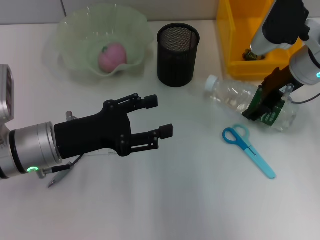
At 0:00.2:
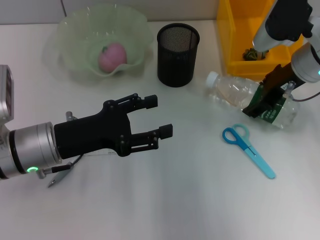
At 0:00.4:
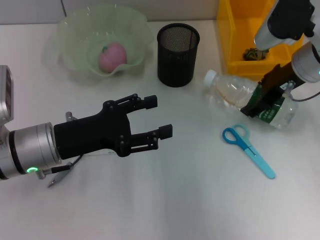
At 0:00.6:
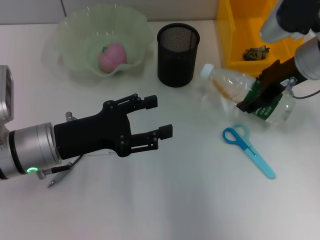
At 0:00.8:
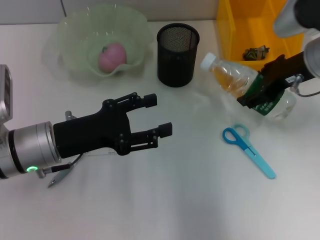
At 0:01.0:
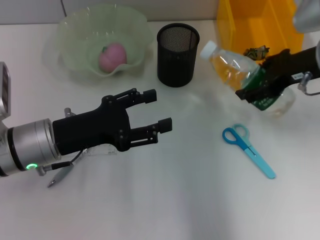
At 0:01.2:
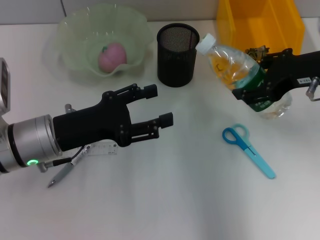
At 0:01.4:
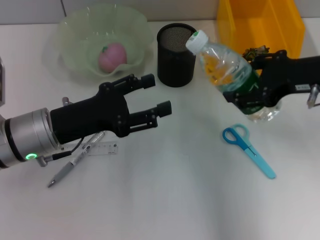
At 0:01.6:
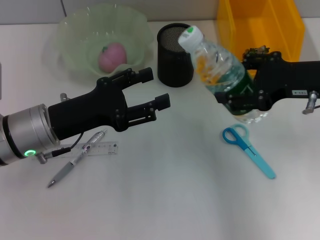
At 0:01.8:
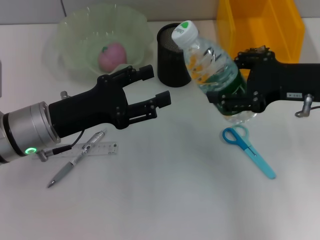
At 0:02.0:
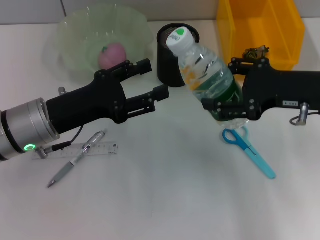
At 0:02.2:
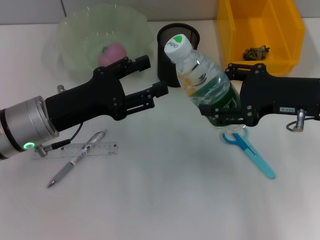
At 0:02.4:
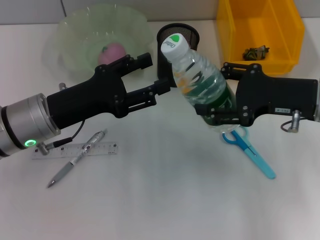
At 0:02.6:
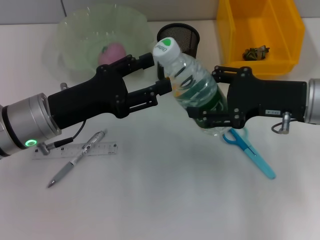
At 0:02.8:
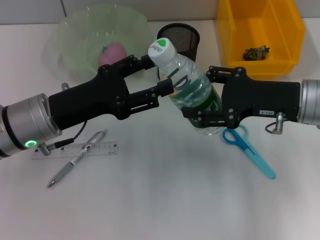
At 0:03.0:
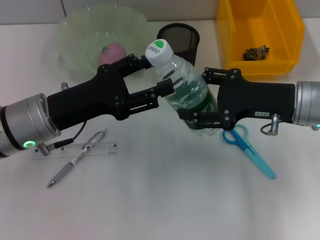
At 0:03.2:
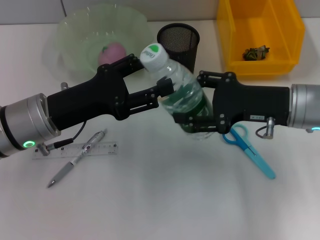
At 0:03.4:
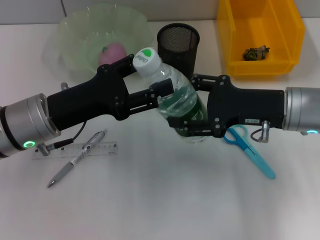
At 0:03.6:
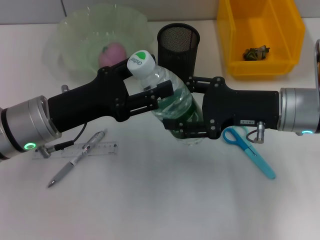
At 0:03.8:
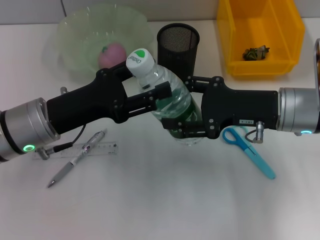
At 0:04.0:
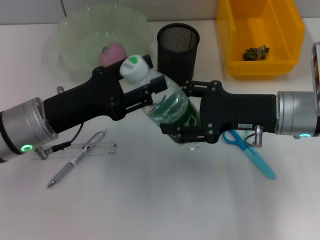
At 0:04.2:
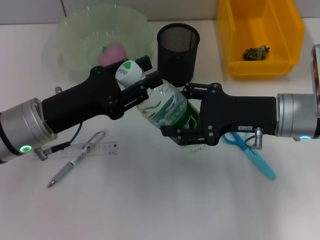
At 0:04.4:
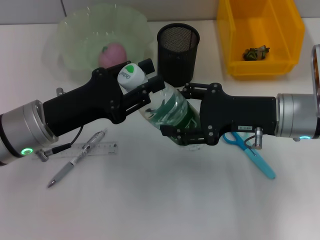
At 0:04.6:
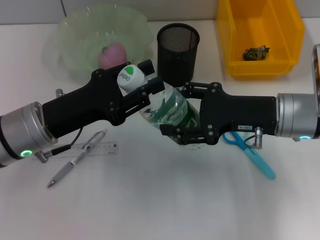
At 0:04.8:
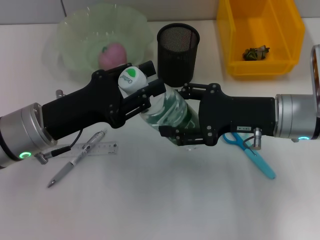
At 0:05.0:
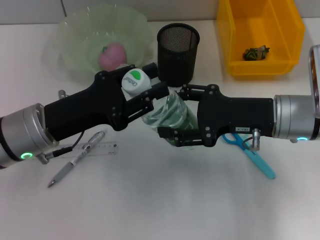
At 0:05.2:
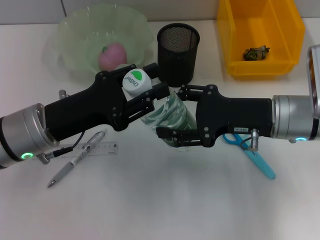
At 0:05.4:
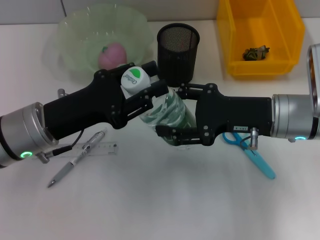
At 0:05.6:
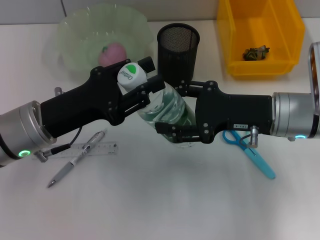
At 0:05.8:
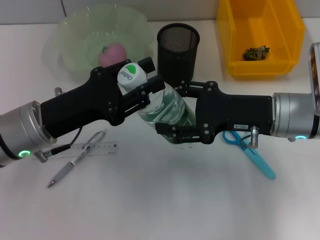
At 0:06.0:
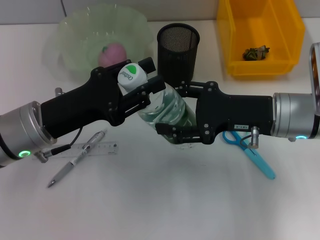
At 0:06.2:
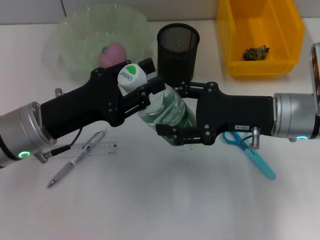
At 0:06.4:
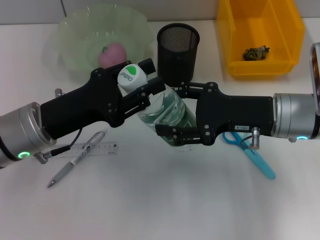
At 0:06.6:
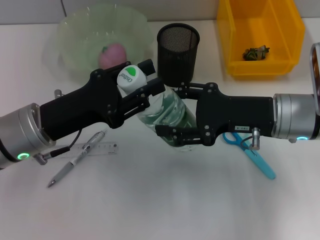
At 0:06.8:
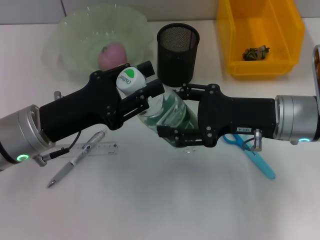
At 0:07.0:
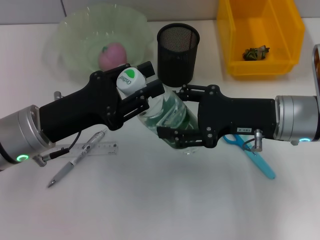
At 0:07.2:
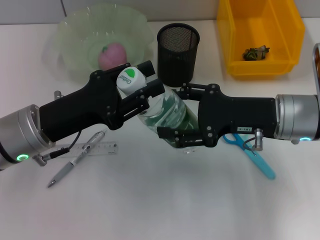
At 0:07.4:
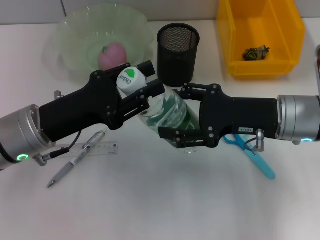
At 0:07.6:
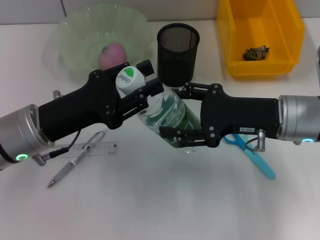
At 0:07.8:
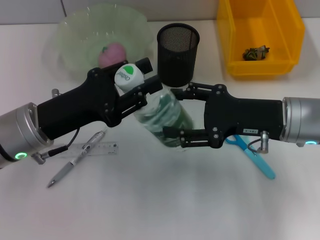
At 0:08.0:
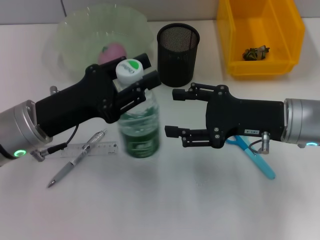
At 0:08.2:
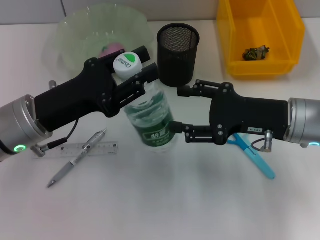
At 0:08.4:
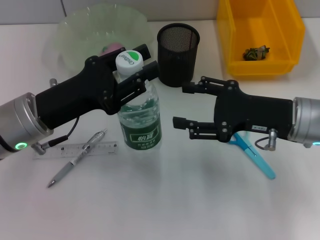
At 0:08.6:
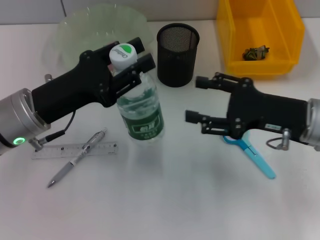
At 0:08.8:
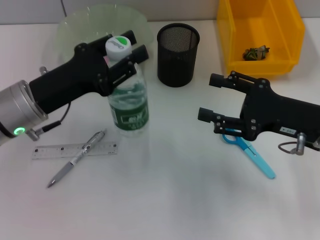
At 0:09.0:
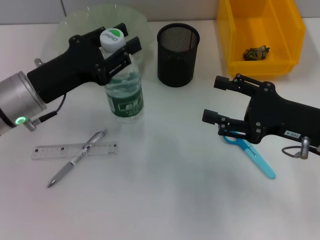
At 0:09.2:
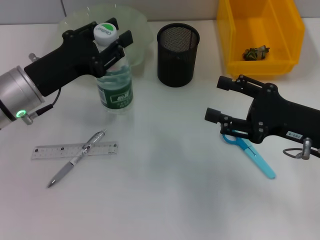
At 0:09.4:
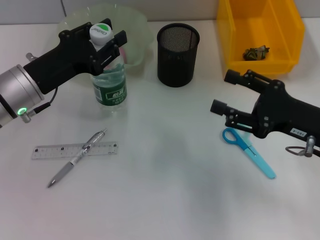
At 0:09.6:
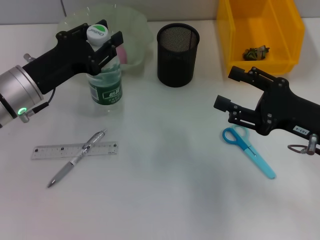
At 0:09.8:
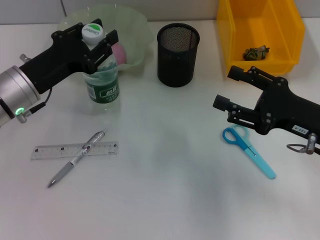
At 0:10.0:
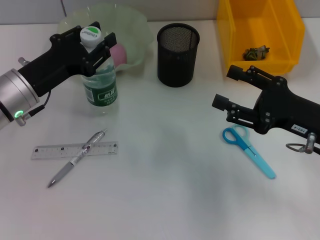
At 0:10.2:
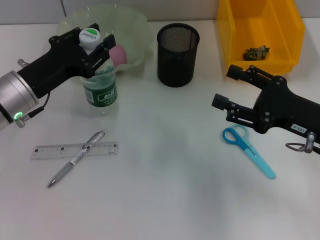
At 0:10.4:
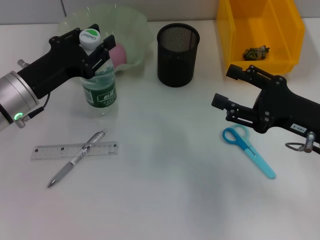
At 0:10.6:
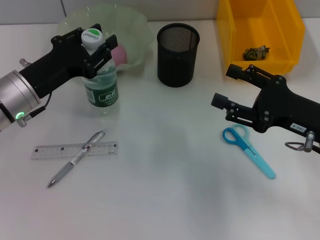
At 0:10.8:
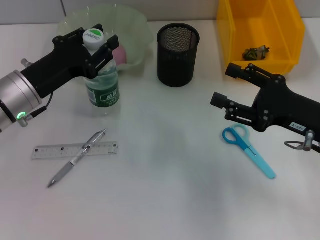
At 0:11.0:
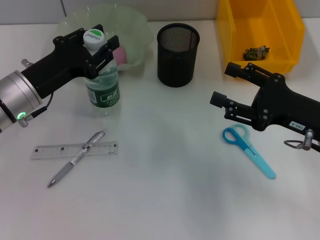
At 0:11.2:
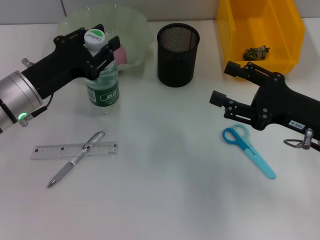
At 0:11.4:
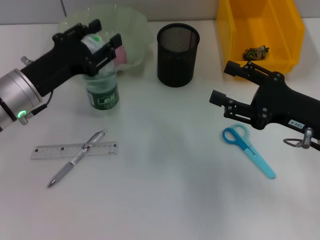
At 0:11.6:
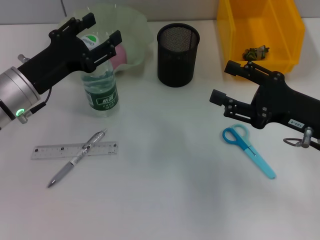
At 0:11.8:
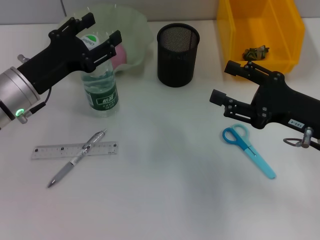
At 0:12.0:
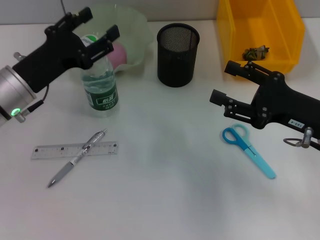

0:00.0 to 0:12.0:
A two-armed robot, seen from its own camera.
Step, 0:00.0 to 0:07.8: Pass the water bottle from the right hand to the left hand.
0:00.0 to 0:01.6: The right gripper is displaced backward by approximately 10 cm.
0:01.6 to 0:03.0: The right gripper moves downward, some 5 cm.
0:03.0 to 0:04.4: The left gripper closes.
0:04.4 to 0:07.6: Neither gripper changes place.
0:07.6 to 0:09.0: The right gripper moves to the right, approximately 5 cm.
0:09.0 to 0:10.4: The grippers make only small movements.
0:10.4 to 0:12.0: The left gripper opens.

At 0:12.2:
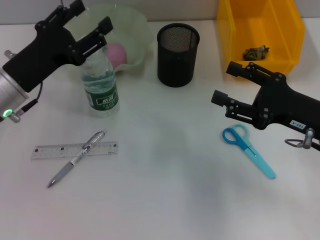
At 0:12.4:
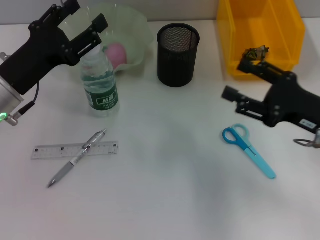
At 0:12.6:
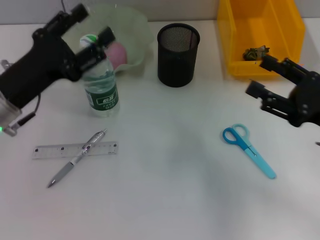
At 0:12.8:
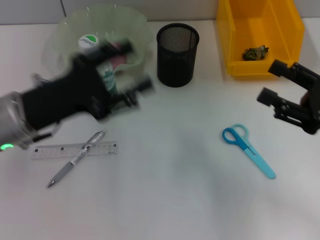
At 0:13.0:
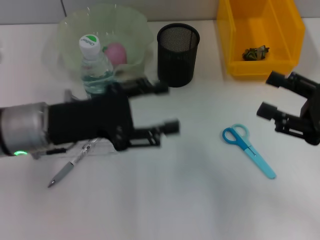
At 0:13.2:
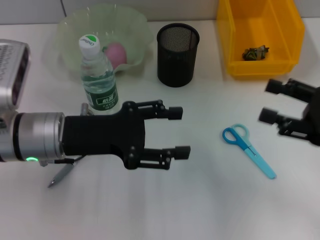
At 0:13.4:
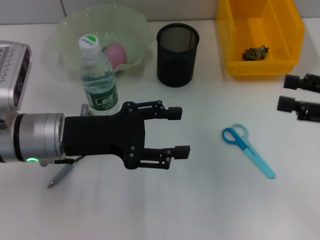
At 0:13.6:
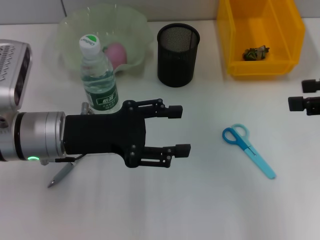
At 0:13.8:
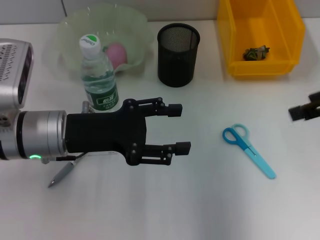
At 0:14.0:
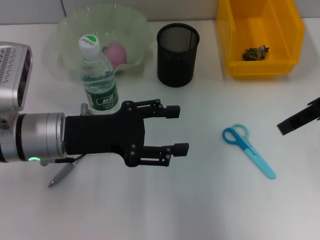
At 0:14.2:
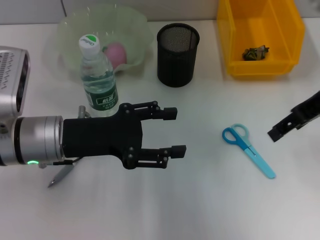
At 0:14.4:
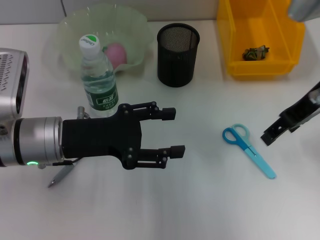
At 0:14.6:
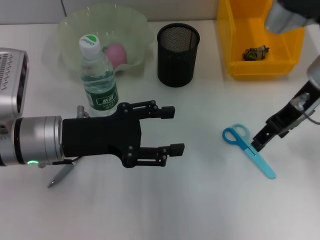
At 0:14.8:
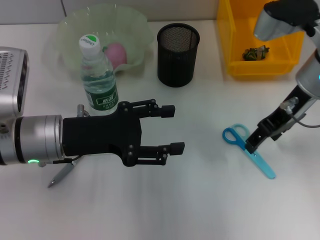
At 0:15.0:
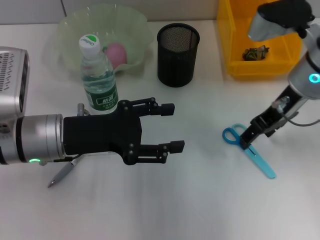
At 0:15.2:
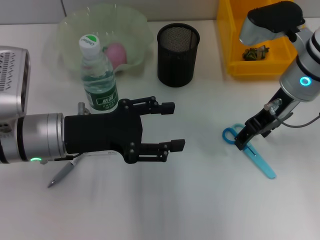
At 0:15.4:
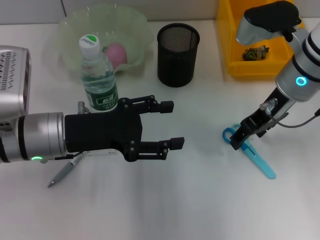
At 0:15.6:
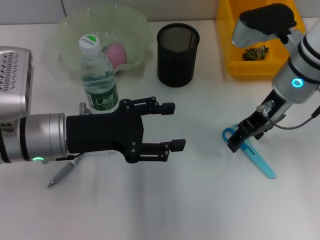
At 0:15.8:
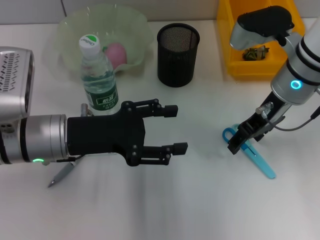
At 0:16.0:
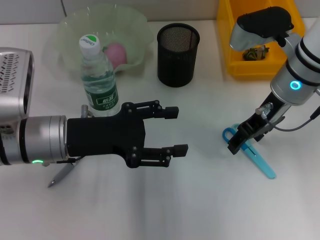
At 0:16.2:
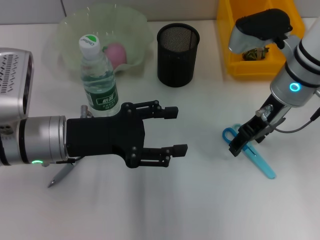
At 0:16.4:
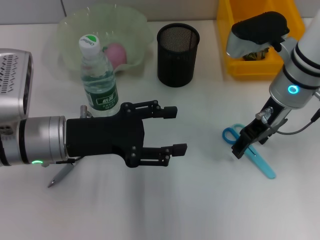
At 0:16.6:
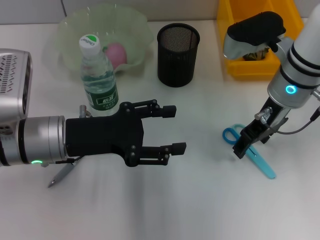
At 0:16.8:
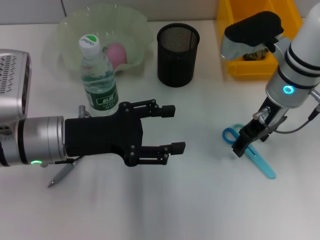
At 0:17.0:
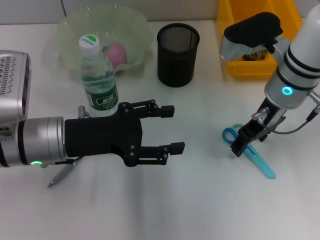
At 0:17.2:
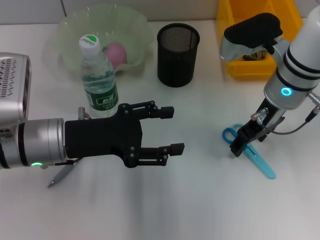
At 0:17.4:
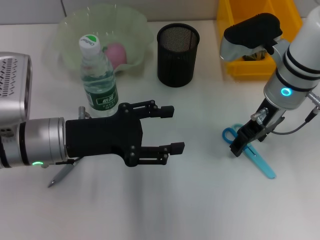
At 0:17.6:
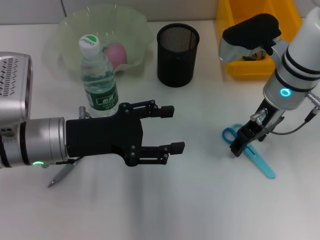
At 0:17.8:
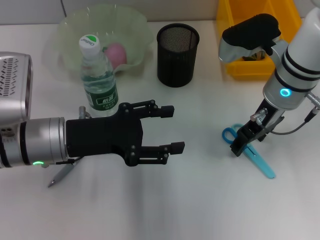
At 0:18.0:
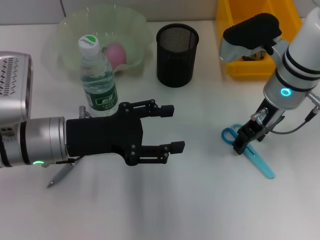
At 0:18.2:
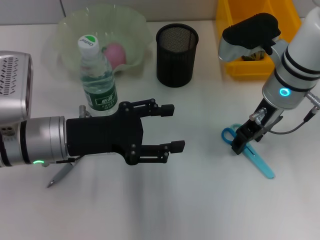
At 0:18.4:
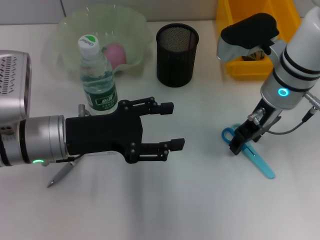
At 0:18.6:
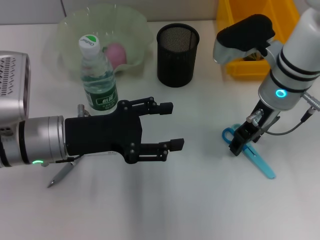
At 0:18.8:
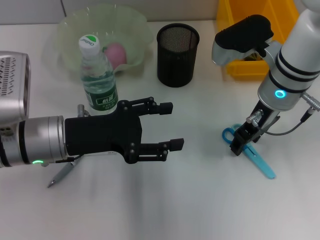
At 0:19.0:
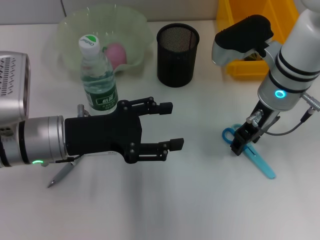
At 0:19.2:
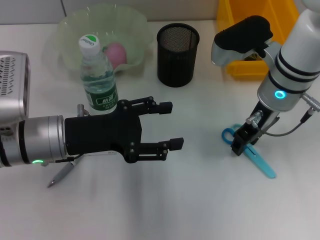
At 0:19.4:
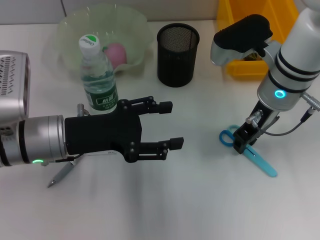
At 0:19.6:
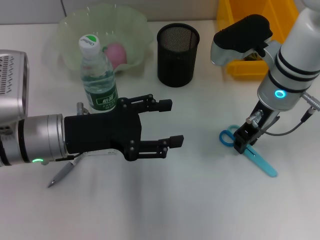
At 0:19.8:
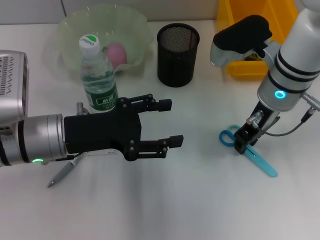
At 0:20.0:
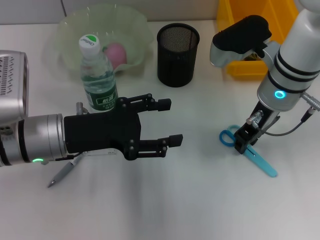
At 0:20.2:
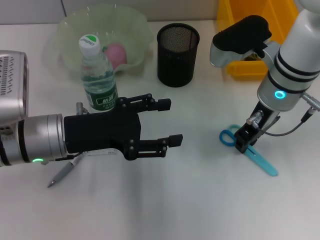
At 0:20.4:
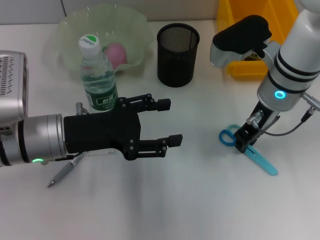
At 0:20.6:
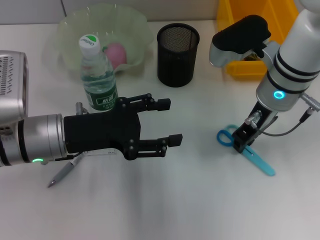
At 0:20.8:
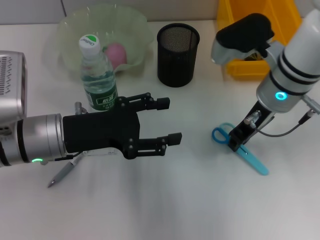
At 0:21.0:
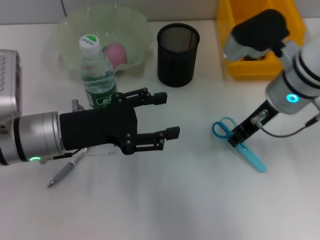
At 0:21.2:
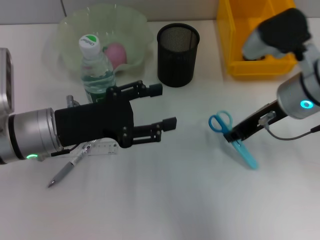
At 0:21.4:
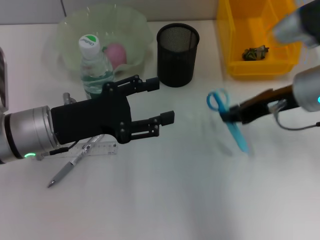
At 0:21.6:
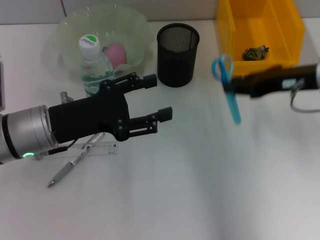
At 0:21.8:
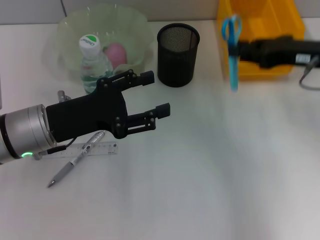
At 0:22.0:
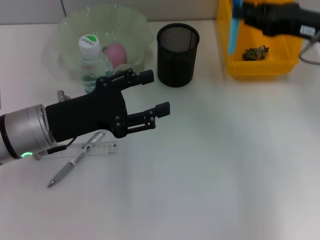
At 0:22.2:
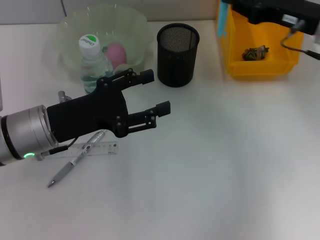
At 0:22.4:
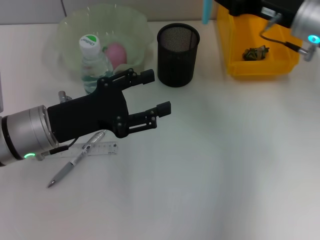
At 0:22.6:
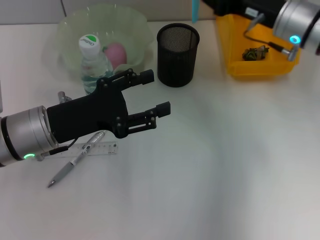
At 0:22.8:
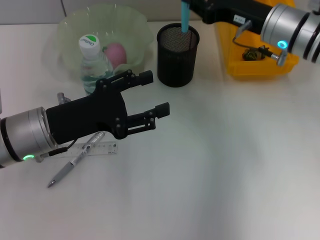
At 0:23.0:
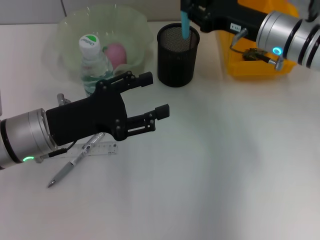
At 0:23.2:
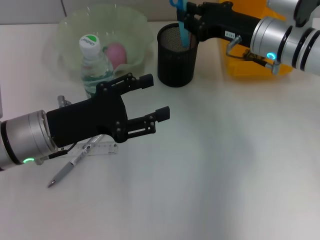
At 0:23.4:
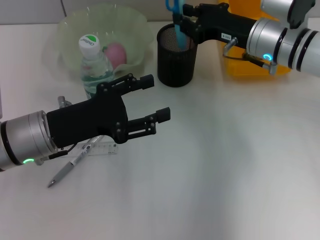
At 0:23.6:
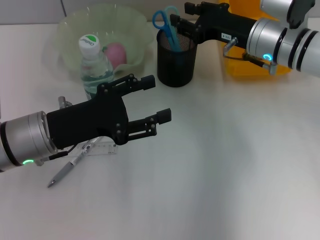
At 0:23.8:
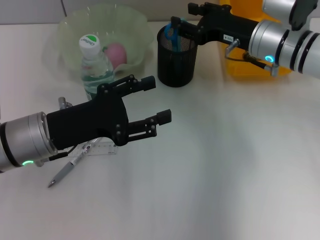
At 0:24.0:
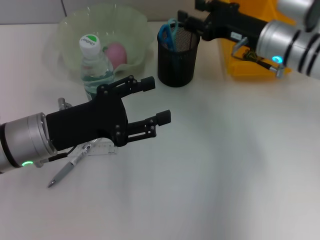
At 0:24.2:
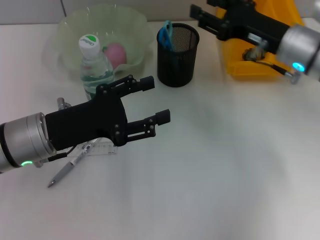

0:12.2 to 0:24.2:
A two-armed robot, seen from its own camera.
Step, 0:12.4 to 0:20.4: Grab the blue scissors with the right hand.
Step, 0:20.6 to 0:23.8: Place the blue scissors into the pen holder with the right hand.
0:12.2 to 0:13.8: The right gripper shifts roughly 15 cm upward. Meanwhile the left gripper goes approximately 5 cm to the right.
0:13.8 to 0:15.2: The right gripper heads to the left, downward and forward, covering roughly 15 cm.
0:15.2 to 0:16.6: The grippers stay close to where they were, moving slightly.
0:16.6 to 0:18.2: Neither gripper changes place.
0:18.2 to 0:19.8: The right gripper closes its fingers.
0:21.2 to 0:22.6: The right gripper shifts roughly 5 cm forward.
0:22.6 to 0:24.2: The right gripper opens up.
